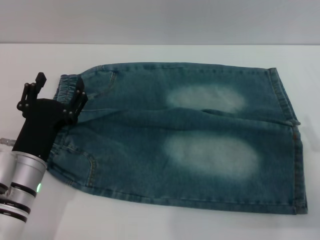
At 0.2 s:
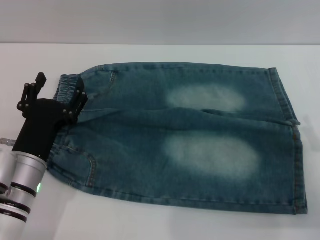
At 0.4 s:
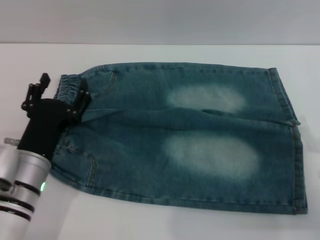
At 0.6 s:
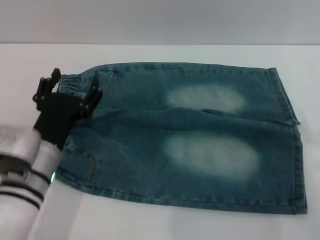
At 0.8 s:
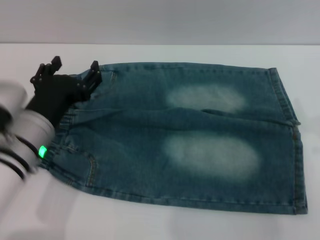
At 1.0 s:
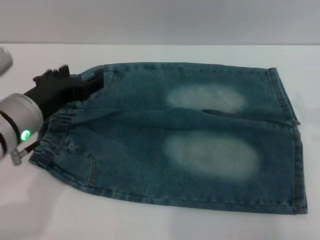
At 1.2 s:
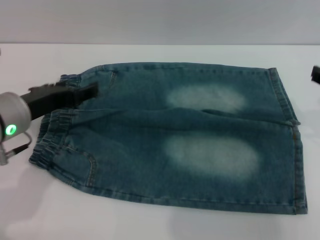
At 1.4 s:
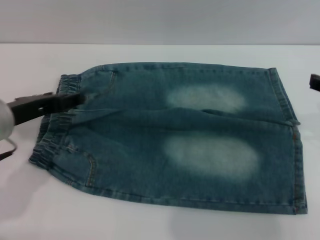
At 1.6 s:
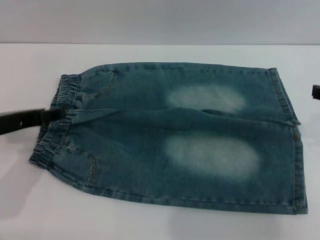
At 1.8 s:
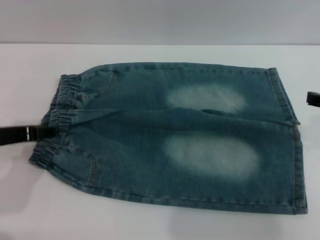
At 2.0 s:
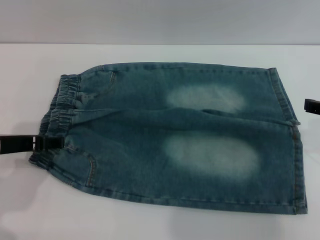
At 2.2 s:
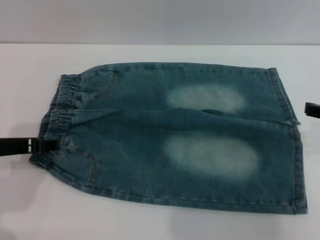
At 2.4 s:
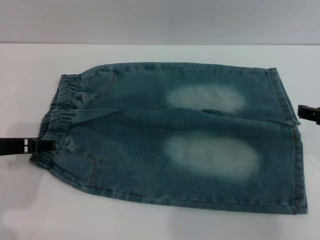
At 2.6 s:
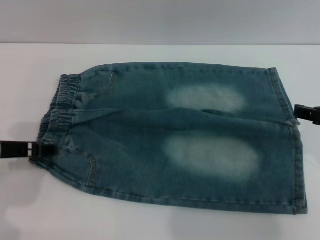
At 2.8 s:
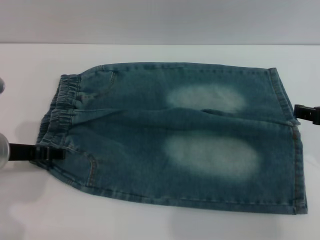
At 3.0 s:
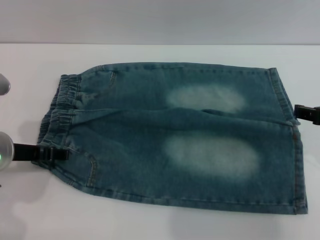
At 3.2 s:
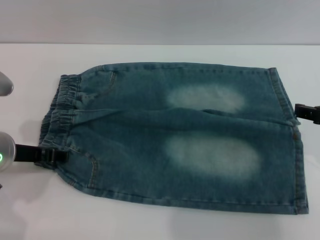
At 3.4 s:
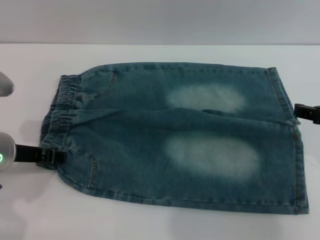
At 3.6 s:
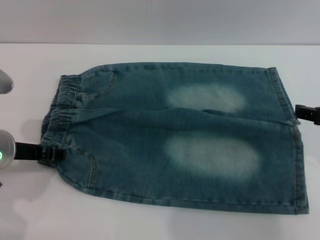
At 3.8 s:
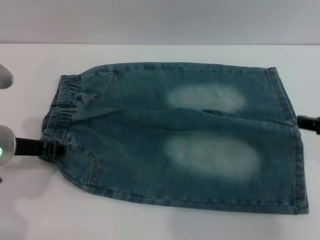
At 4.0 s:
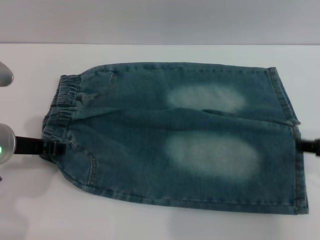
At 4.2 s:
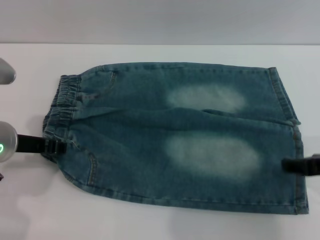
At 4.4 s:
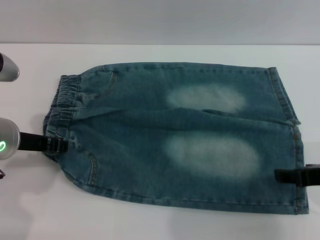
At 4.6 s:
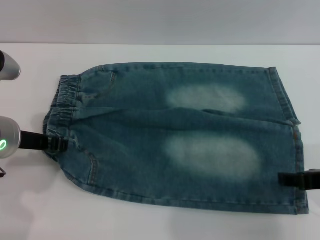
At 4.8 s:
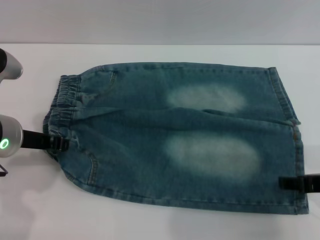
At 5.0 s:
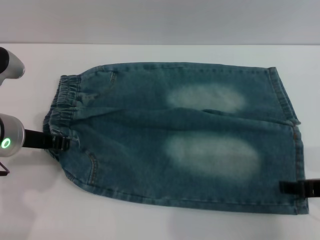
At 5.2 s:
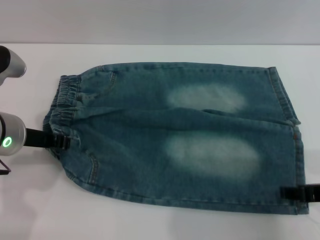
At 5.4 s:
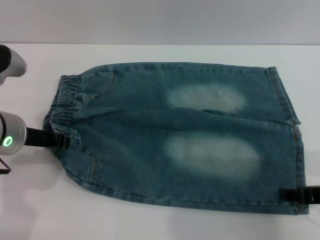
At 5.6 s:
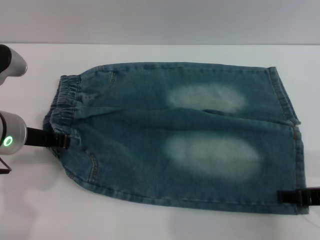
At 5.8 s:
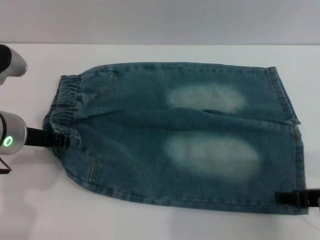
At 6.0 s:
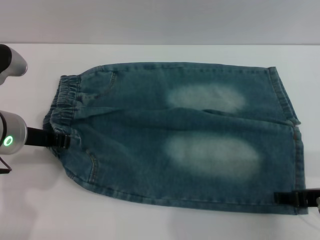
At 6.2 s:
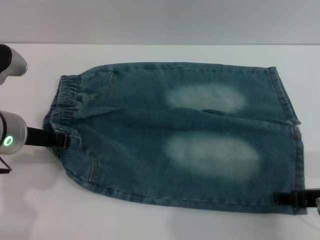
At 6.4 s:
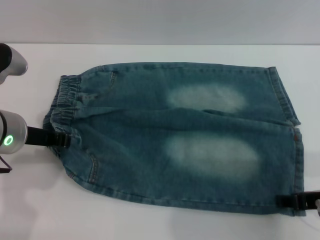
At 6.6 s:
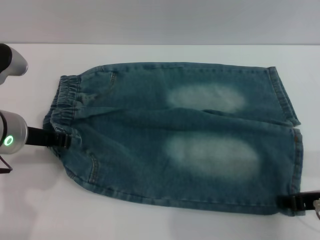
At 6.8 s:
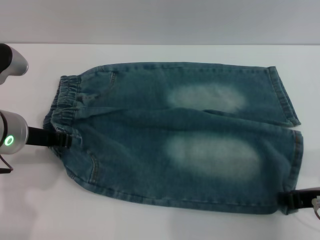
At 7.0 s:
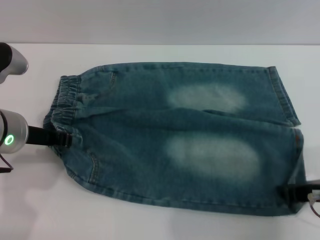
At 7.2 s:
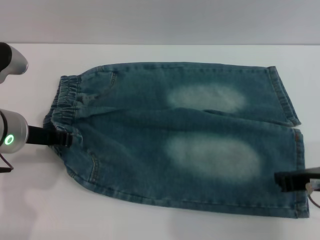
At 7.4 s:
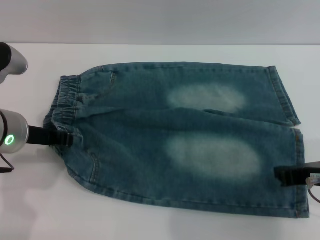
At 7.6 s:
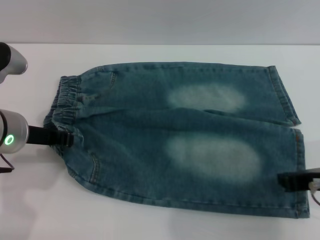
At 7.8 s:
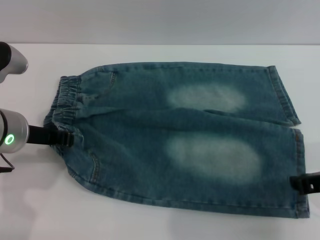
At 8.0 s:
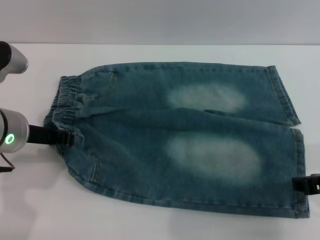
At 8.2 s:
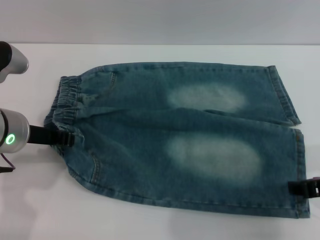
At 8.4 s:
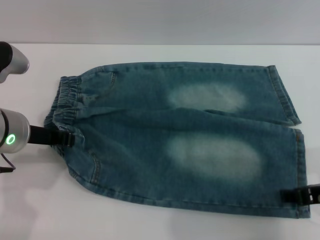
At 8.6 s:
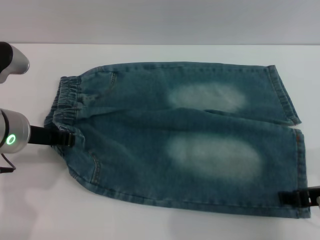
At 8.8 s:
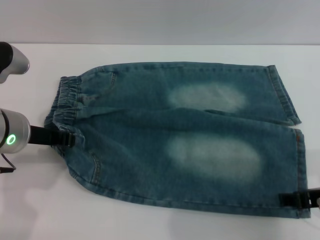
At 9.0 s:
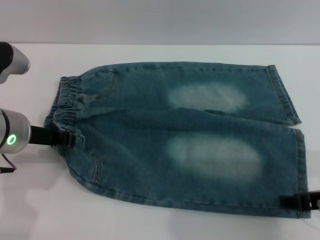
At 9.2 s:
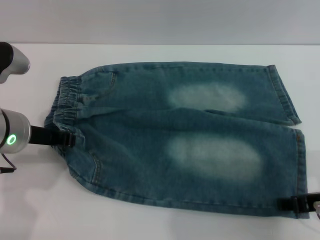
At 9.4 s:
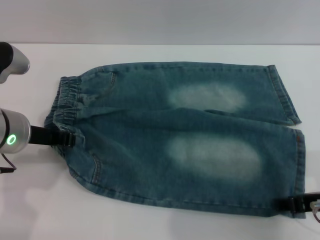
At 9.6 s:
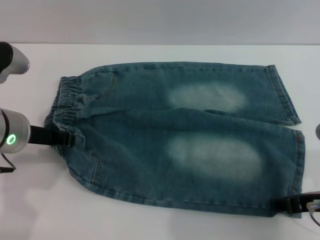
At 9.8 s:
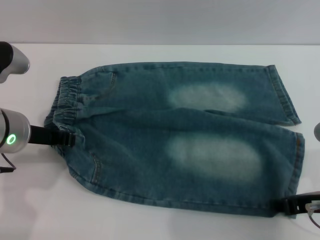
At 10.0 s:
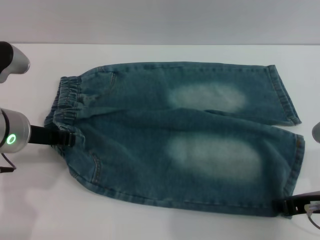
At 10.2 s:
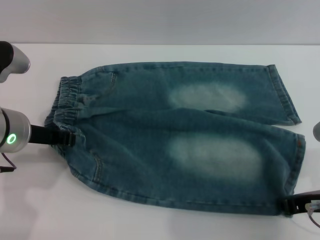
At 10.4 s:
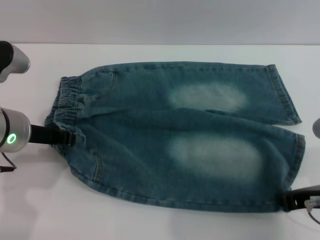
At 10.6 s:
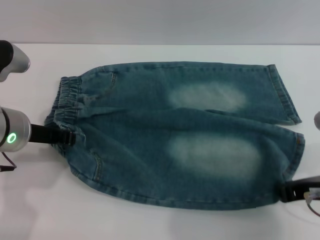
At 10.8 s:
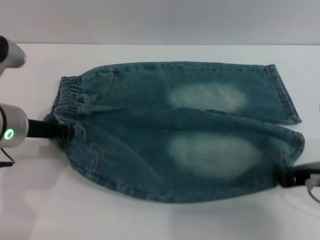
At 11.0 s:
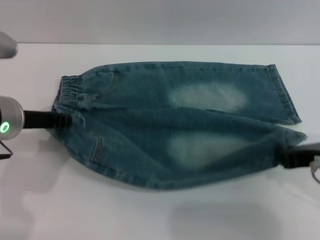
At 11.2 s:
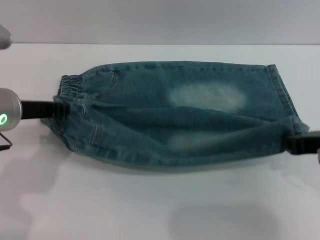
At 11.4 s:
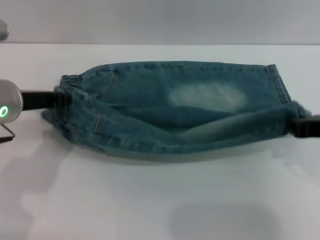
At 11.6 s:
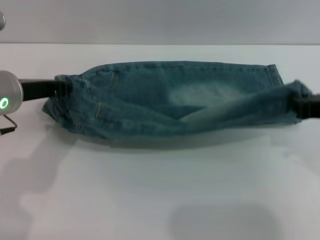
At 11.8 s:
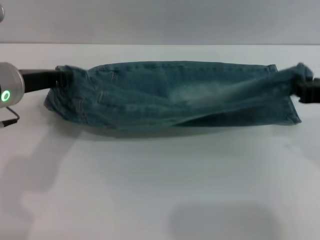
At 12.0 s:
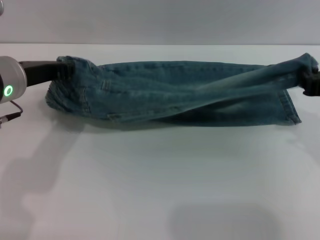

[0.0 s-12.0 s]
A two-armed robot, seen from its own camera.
0.0 to 1.6 s: The right gripper shifts about 15 cm upward; the left gripper heads upward and to the left, covering about 10 cm.
1.6 to 3.0 s: The grippers stay close to where they were, moving slightly.
3.0 to 4.4 s: The left gripper closes up.
4.4 to 6.0 s: The grippers move only a little.
6.0 to 7.6 s: The right gripper closes its fingers.
7.6 to 9.0 s: The right gripper opens its fingers.
9.0 to 10.4 s: The right gripper closes.
10.4 to 12.0 s: The right gripper shifts some 5 cm upward.

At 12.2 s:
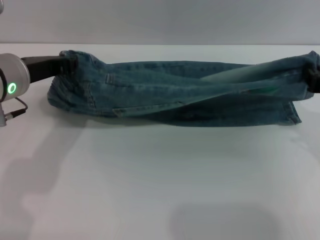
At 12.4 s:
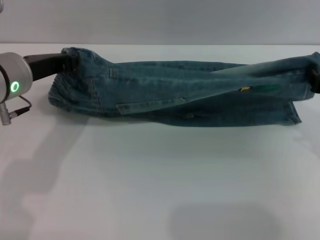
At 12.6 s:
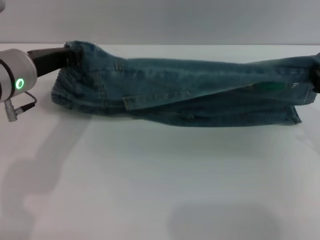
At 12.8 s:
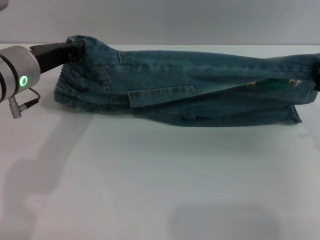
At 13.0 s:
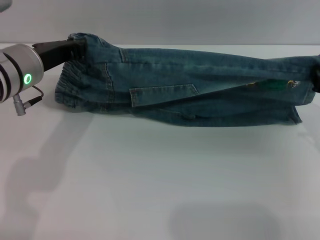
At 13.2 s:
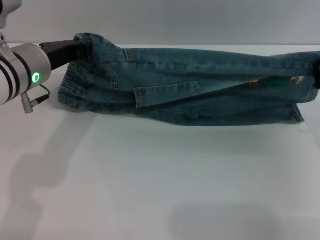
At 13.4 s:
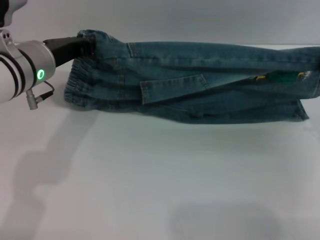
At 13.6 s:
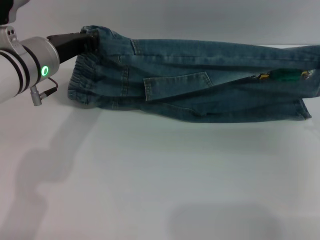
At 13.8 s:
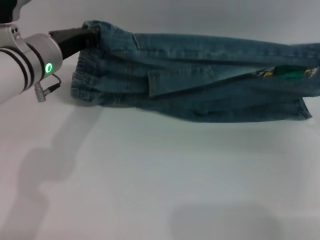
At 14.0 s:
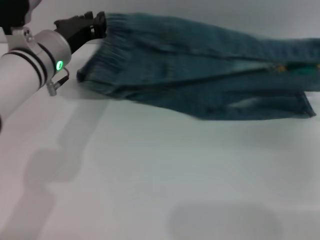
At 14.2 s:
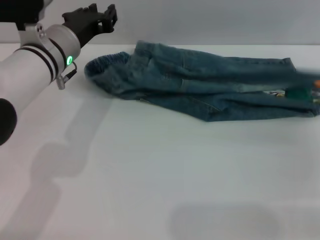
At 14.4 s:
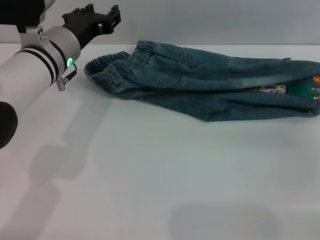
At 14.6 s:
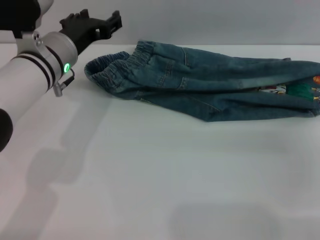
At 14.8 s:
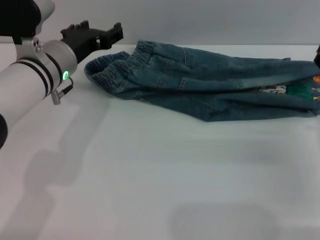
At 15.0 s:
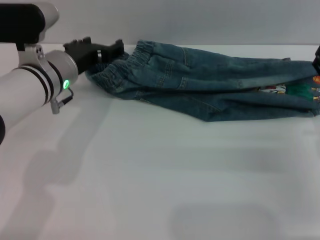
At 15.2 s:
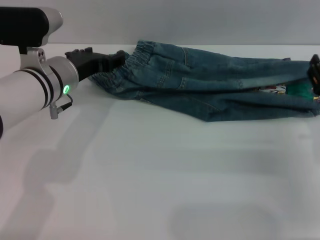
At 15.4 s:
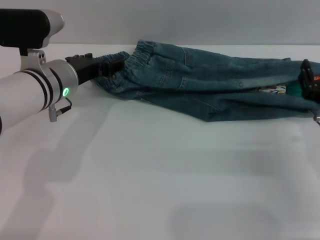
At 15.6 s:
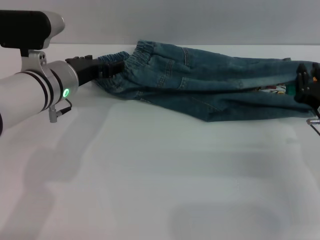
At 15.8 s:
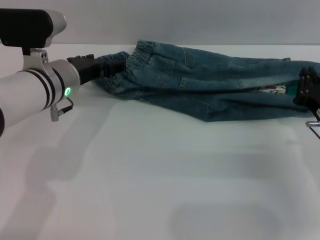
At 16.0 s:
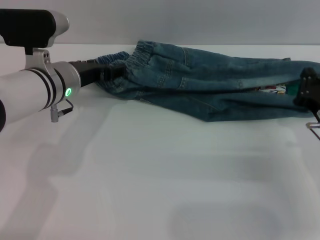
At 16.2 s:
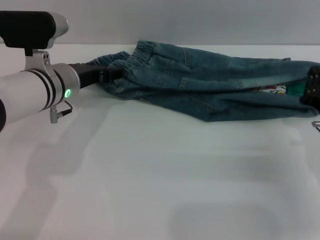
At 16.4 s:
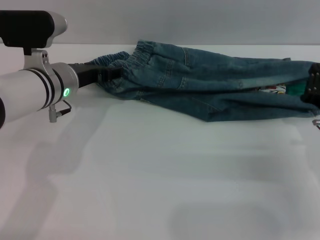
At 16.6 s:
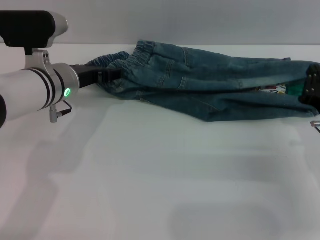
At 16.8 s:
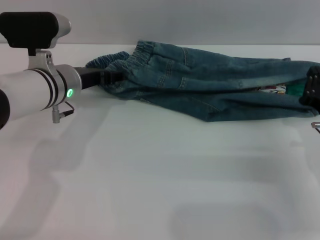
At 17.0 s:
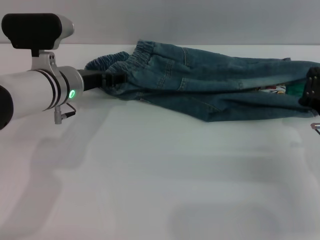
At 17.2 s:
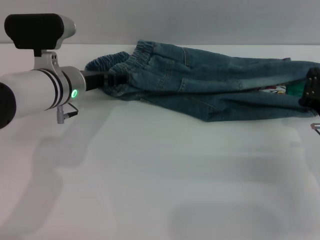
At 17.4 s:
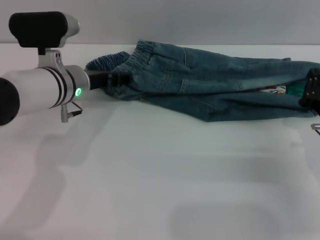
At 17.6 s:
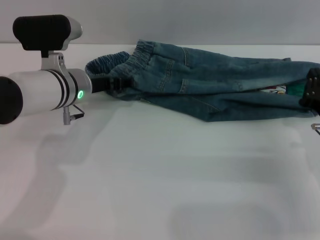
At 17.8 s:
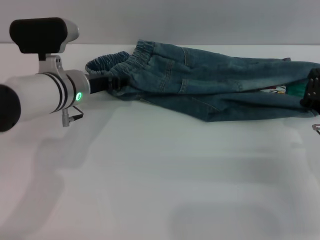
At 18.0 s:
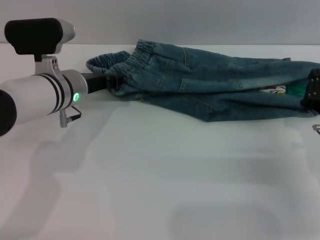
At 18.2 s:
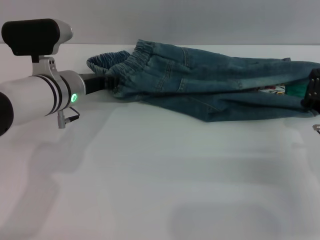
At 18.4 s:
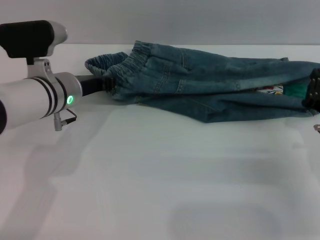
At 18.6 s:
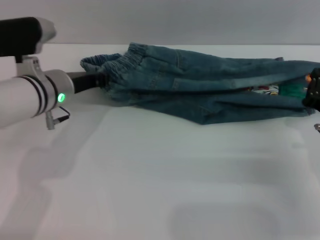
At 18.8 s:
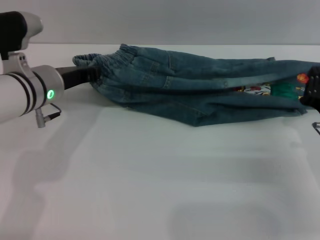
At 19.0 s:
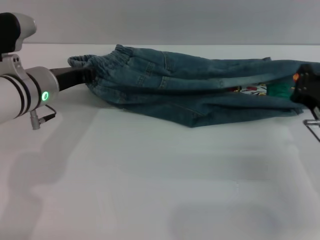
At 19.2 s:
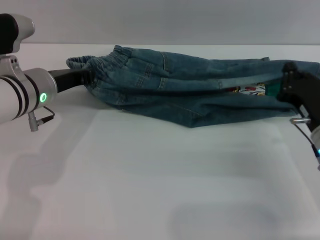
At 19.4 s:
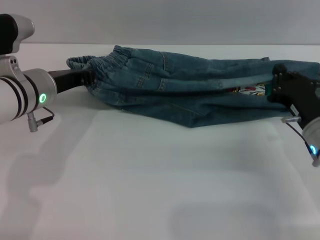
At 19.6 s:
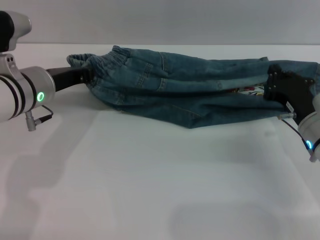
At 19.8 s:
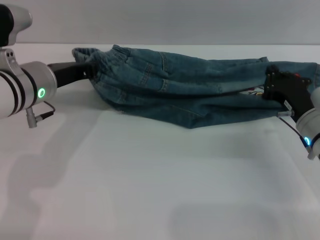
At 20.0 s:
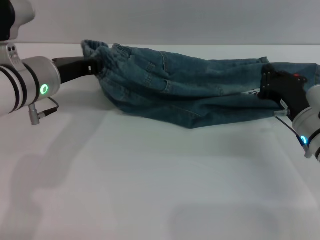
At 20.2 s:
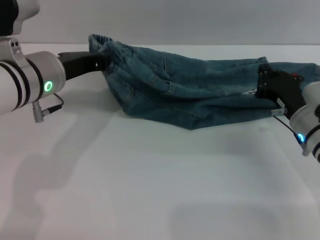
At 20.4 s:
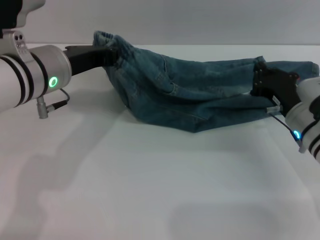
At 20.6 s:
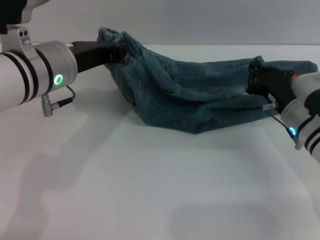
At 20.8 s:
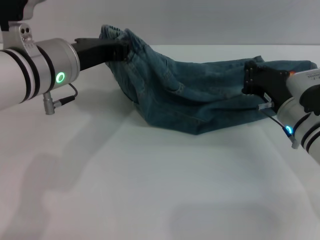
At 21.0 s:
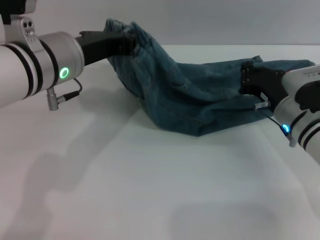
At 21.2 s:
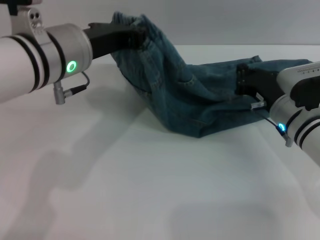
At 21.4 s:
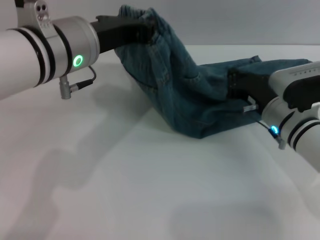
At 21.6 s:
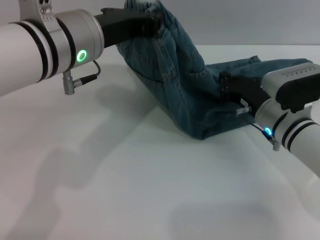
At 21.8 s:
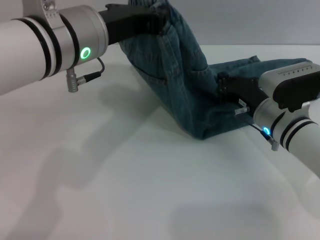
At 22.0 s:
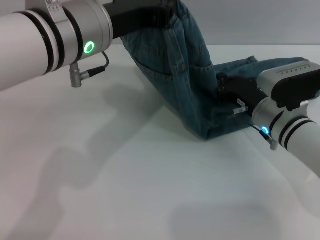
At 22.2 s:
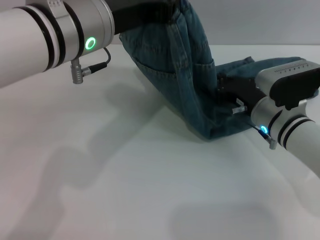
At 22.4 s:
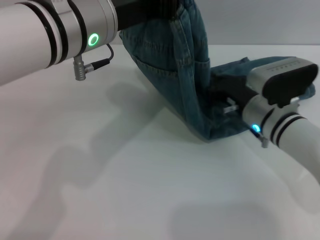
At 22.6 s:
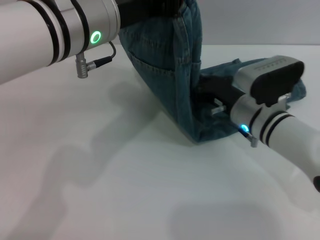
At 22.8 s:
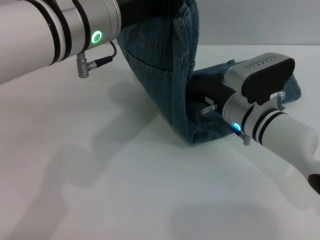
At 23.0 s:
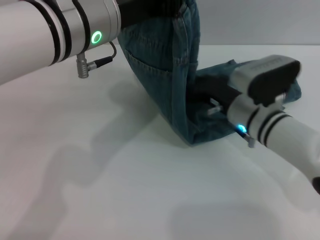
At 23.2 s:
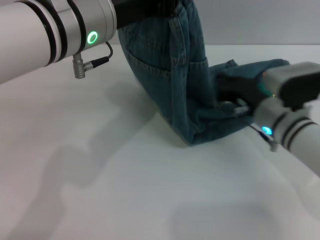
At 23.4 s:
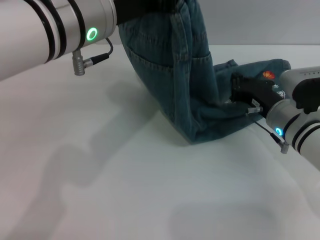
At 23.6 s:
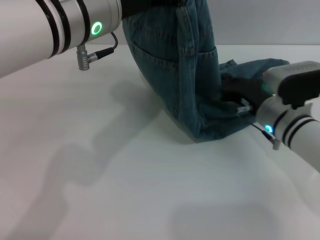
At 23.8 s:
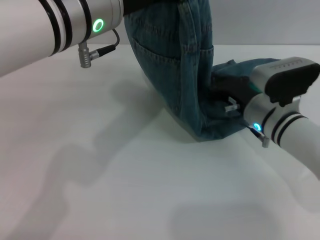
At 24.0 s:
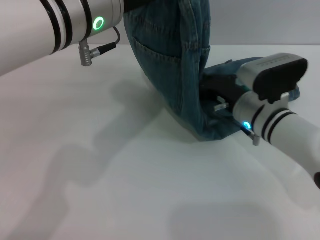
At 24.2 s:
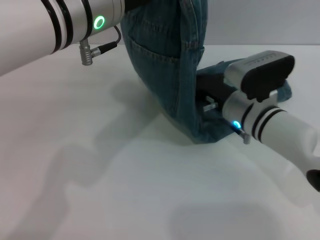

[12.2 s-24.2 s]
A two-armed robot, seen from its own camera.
Step, 12.2 to 14.4 s: Fold the bottom of the pants upward with both grippers.
12.2 to 13.8 s: The right gripper shifts approximately 5 cm downward; the left gripper ends up roughly 5 cm from where it was.
13.8 to 15.2 s: The right gripper shifts some 5 cm downward, and opens. Meanwhile the left gripper opens up.
15.2 to 16.6 s: The right gripper closes its fingers.
16.6 to 18.2 s: The left gripper closes.
18.2 to 19.8 s: The right gripper travels forward by about 5 cm; the left gripper moves some 5 cm.
19.8 to 21.2 s: The left gripper is displaced upward and to the right by roughly 10 cm.
21.2 to 22.6 s: The left gripper changes place by about 5 cm; the right gripper moves to the left, roughly 5 cm.
22.6 to 24.2 s: There are only small adjustments of the grippers.
